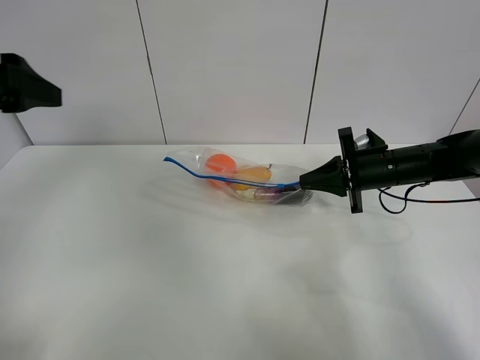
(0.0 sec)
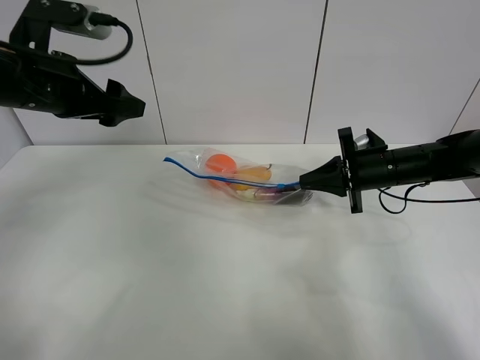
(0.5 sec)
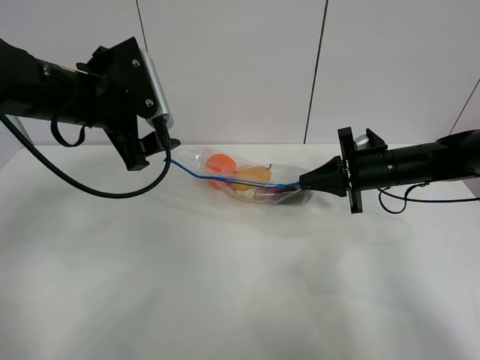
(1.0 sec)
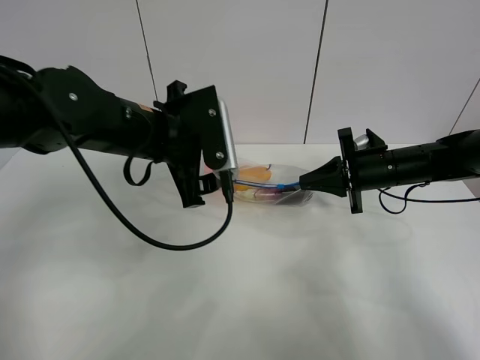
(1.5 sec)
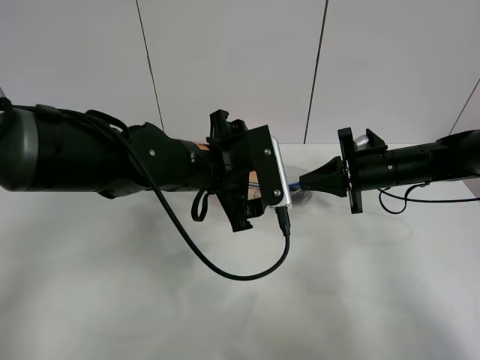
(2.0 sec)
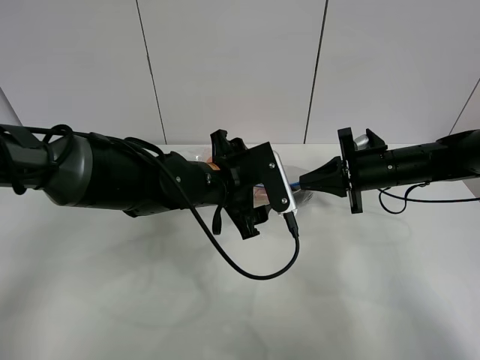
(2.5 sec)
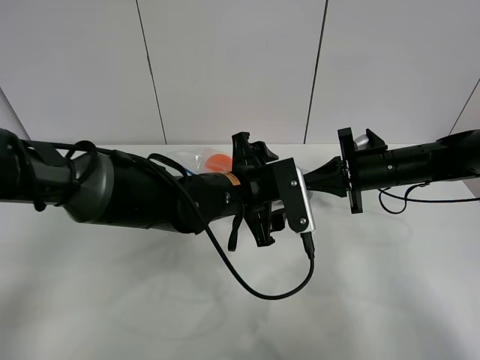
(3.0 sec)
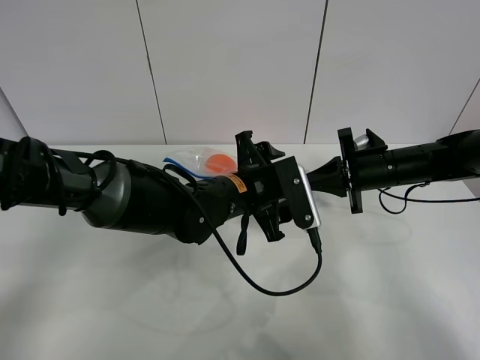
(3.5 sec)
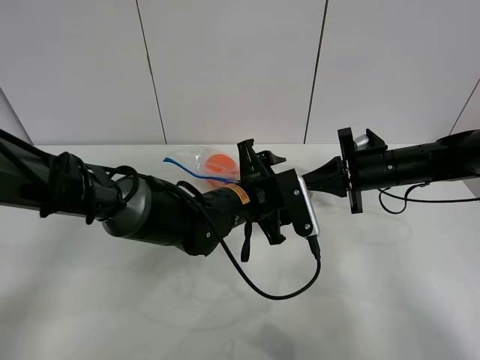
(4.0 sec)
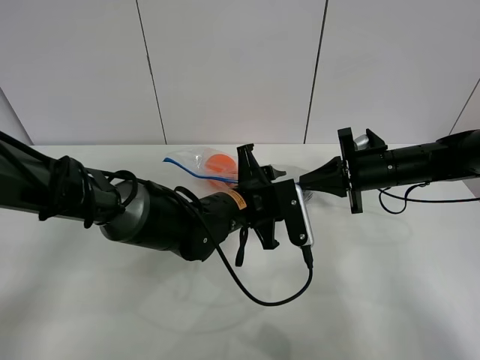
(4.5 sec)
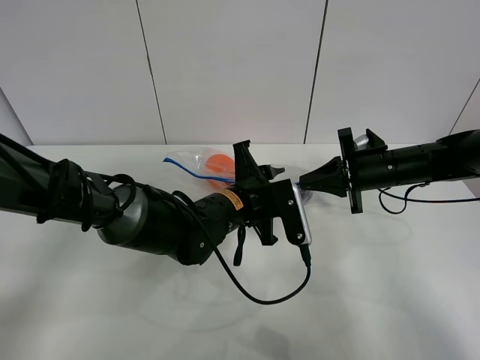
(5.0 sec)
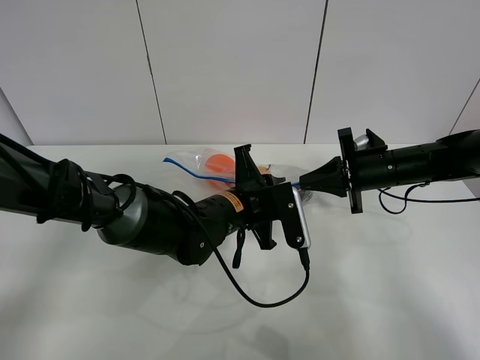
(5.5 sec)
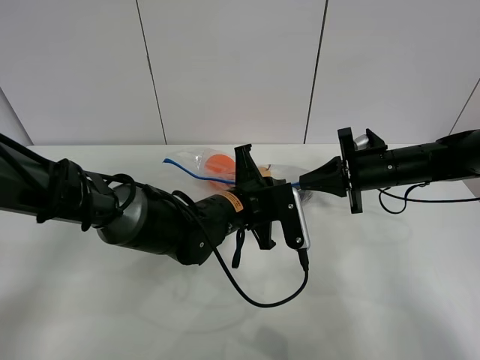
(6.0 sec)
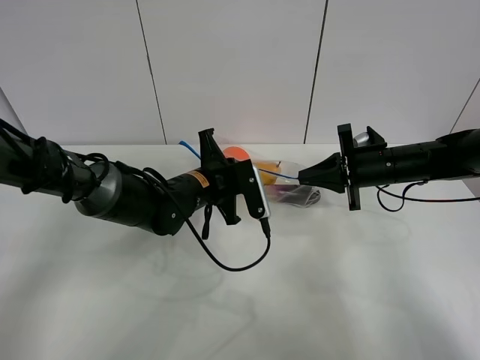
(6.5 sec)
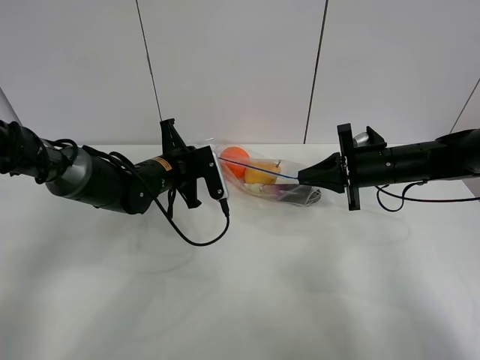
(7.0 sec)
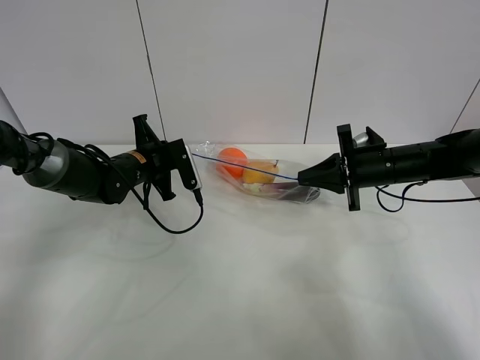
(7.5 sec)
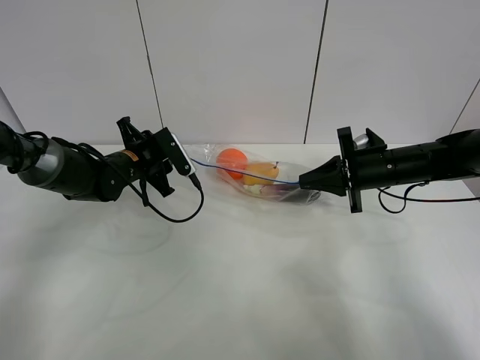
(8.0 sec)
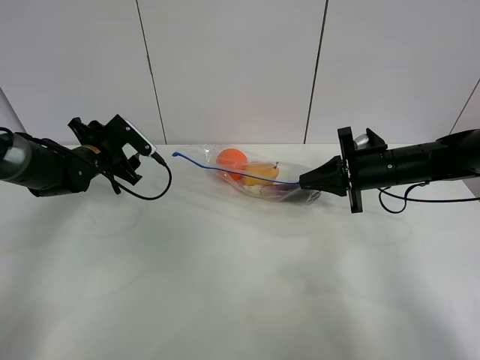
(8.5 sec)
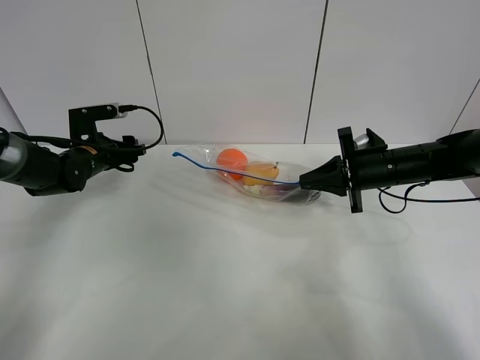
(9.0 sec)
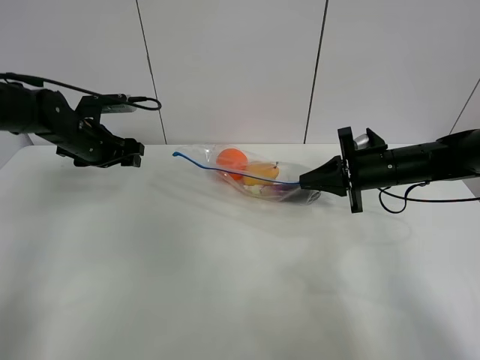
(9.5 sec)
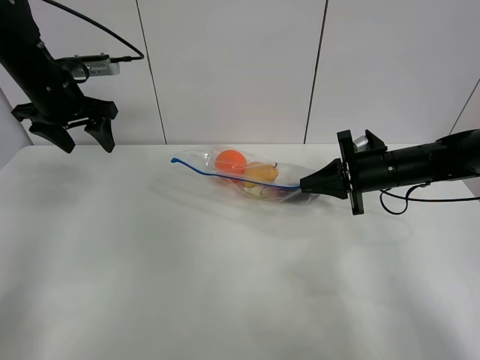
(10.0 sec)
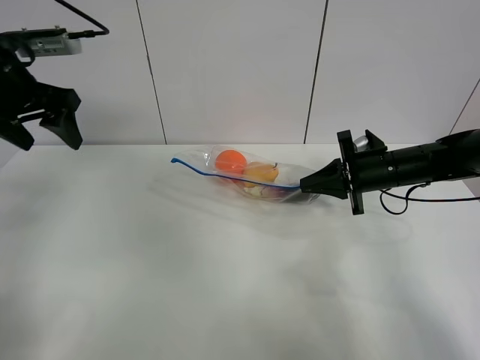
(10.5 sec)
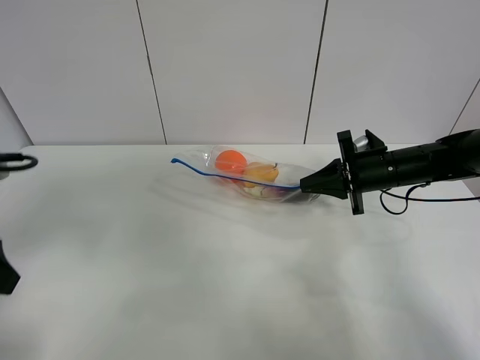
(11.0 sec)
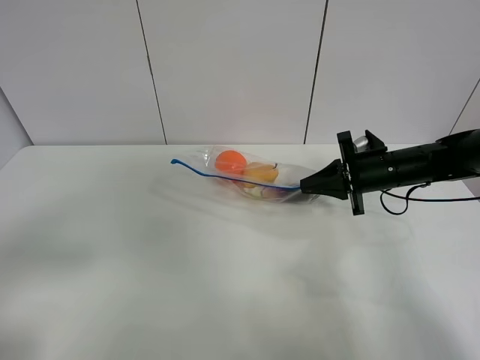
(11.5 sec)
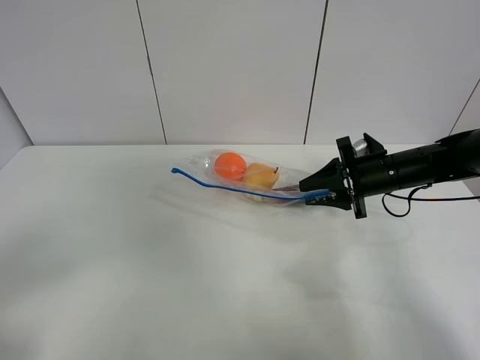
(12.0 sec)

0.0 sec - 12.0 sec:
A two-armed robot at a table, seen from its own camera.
Step, 0.0 sec - 8.5 sec: Pull the fruit bag with left gripper.
0.0 sec - 2.0 sec: The left gripper shifts approximately 30 cm to the right and downward.
2.0 sec - 4.0 sec: The left gripper travels downward by about 5 cm.
4.0 sec - 6.0 sec: The left gripper closes.
6.0 sec - 8.0 sec: The left gripper shifts roughly 20 cm to the left and forward, and opens up.
8.0 sec - 10.0 sec: The left gripper is displaced upward and to the left by about 20 cm.
10.0 sec - 12.0 sec: The right gripper opens its fingers, while the left gripper is displaced backward by about 40 cm.

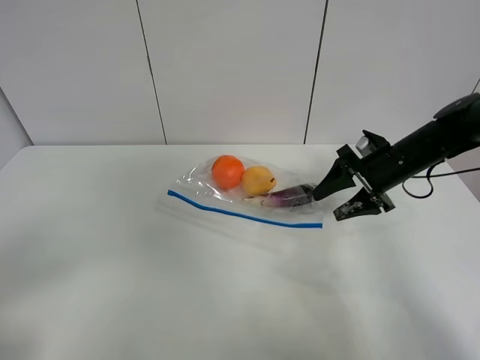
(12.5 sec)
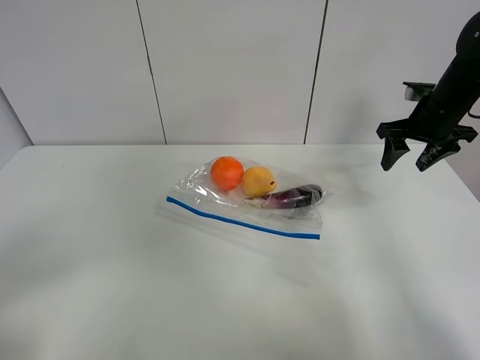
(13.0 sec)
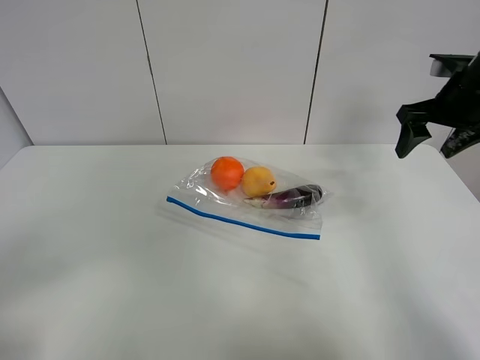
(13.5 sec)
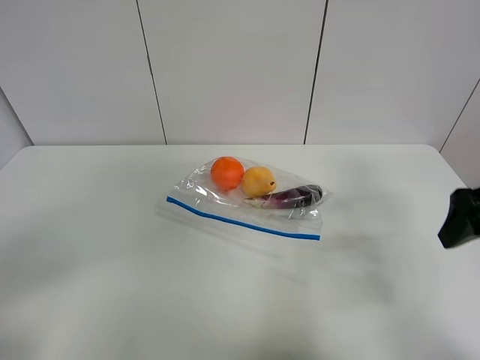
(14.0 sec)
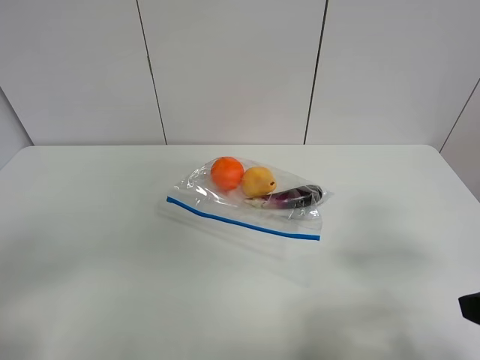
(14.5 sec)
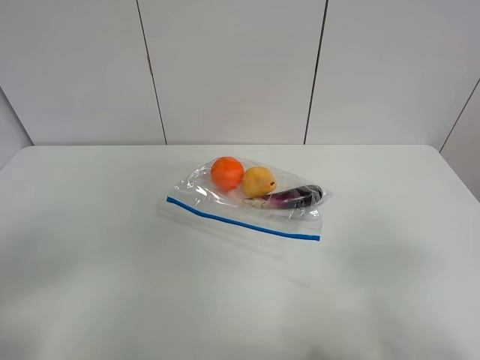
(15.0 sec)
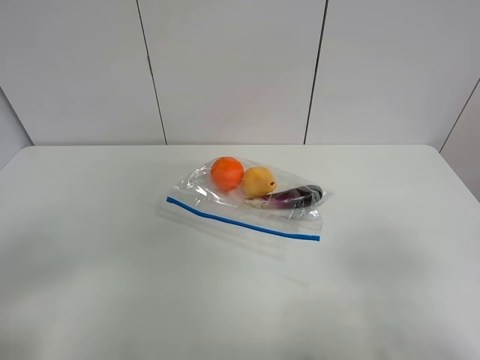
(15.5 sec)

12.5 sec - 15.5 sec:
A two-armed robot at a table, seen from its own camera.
12.5 sec - 14.0 sec: The right gripper moves backward and upward, approximately 20 cm.
14.0 sec - 15.5 sec: The right gripper heads backward, covering roughly 20 cm.
